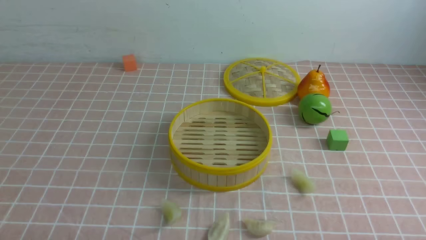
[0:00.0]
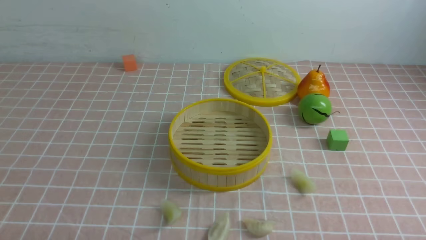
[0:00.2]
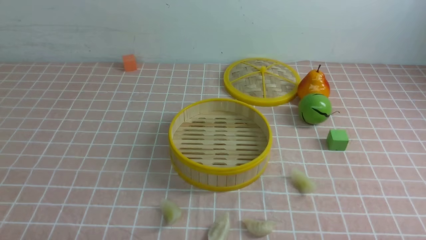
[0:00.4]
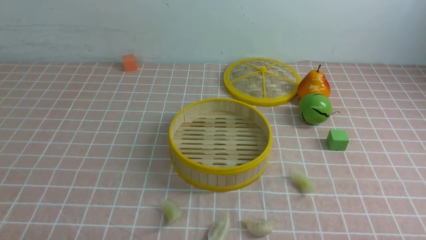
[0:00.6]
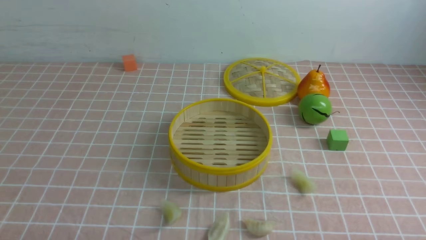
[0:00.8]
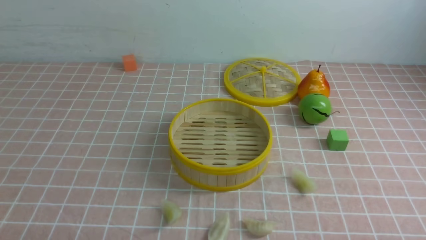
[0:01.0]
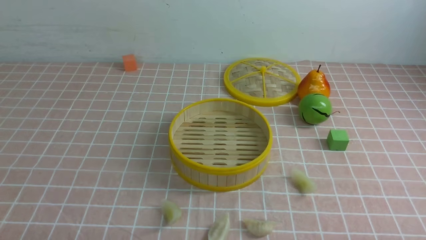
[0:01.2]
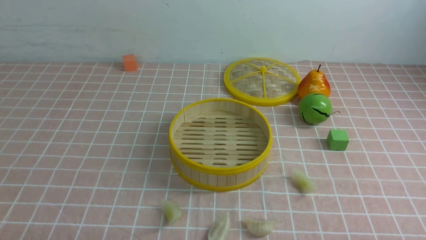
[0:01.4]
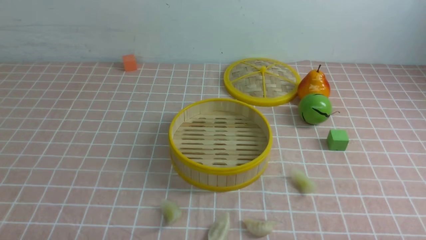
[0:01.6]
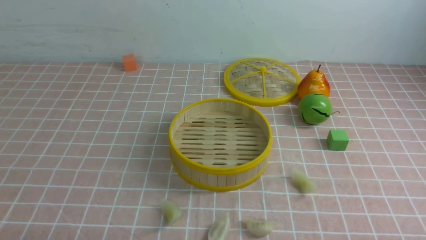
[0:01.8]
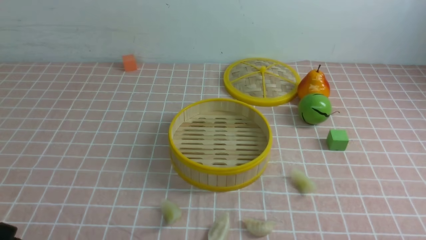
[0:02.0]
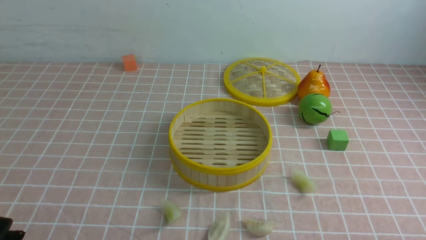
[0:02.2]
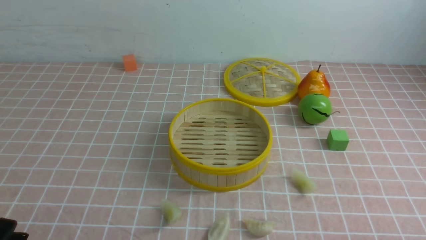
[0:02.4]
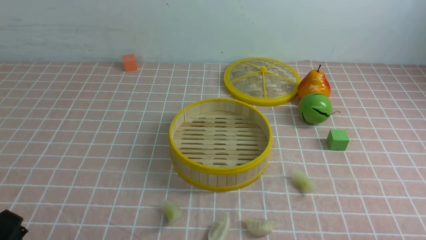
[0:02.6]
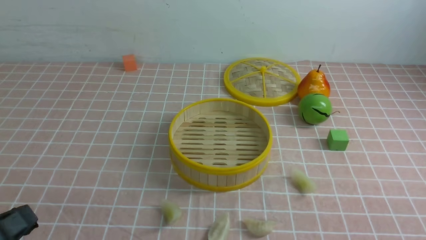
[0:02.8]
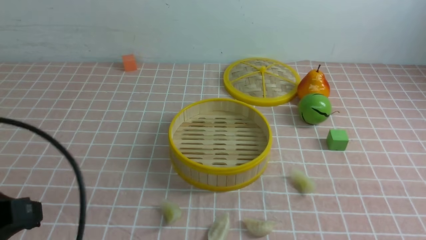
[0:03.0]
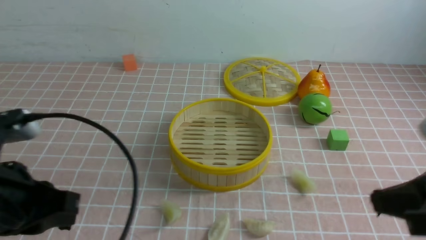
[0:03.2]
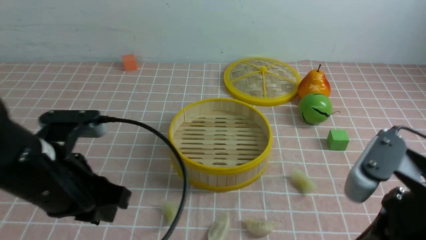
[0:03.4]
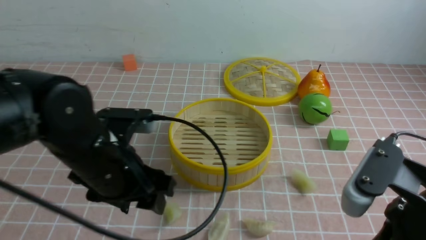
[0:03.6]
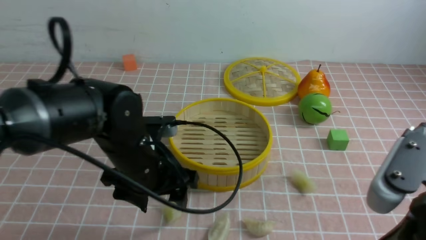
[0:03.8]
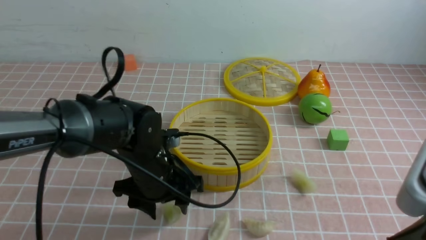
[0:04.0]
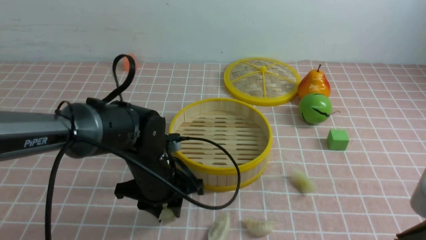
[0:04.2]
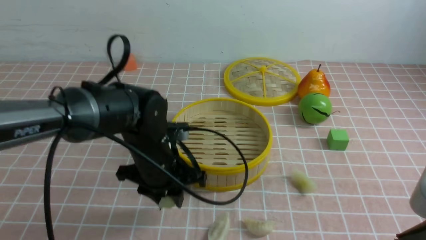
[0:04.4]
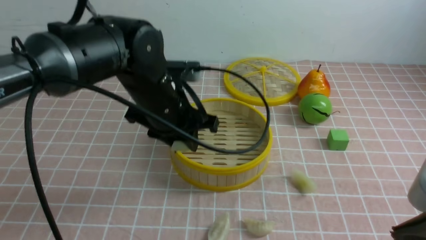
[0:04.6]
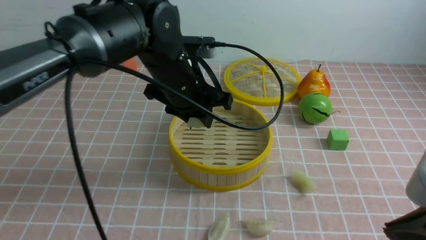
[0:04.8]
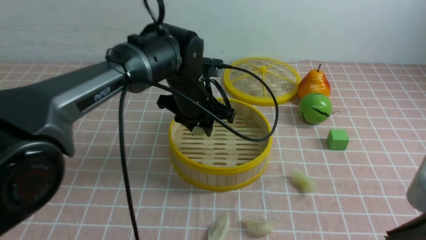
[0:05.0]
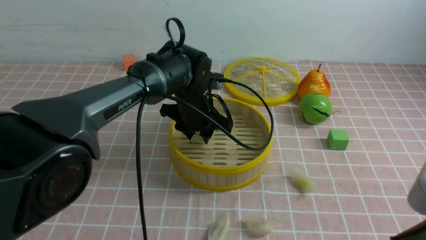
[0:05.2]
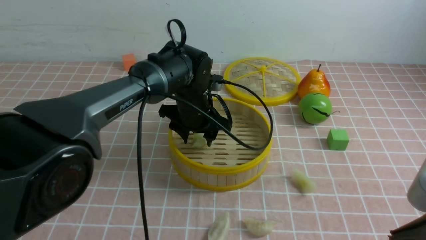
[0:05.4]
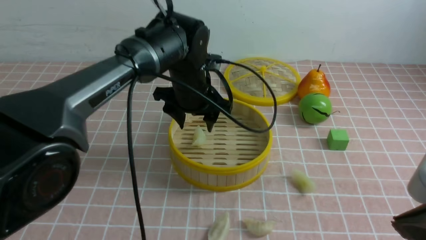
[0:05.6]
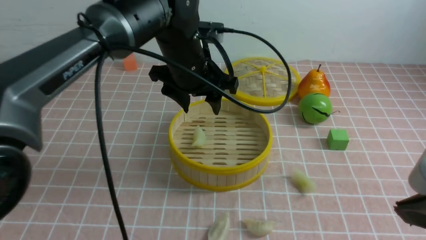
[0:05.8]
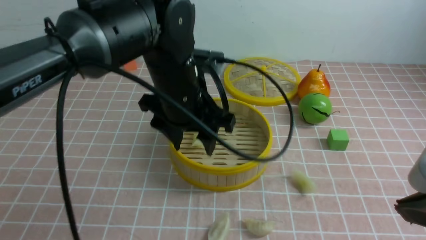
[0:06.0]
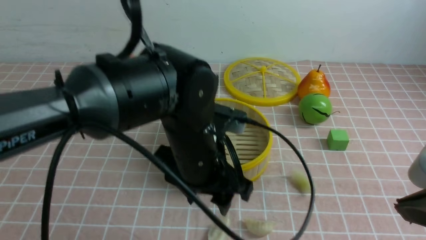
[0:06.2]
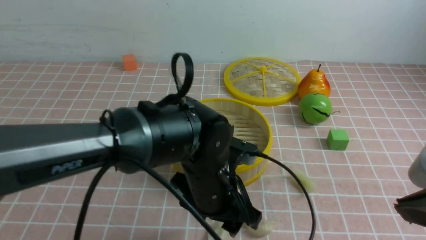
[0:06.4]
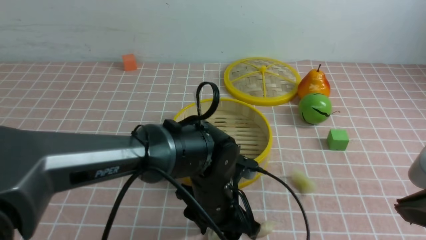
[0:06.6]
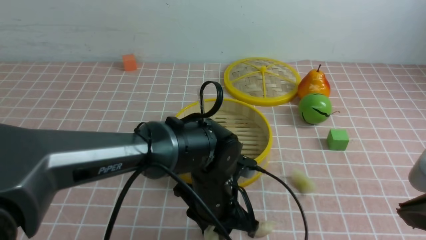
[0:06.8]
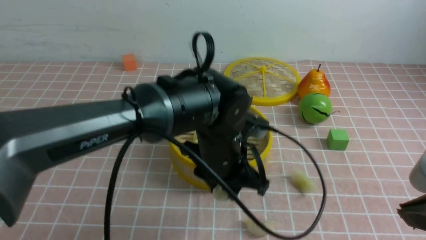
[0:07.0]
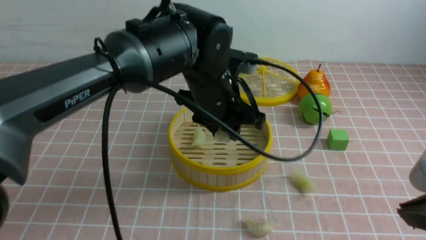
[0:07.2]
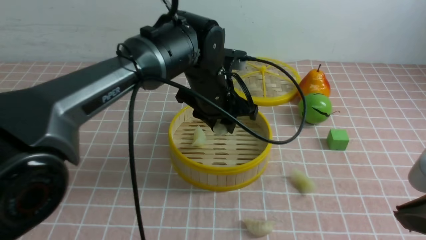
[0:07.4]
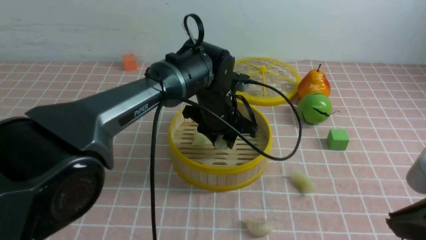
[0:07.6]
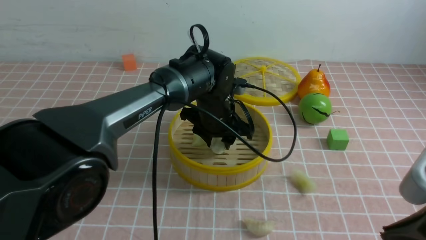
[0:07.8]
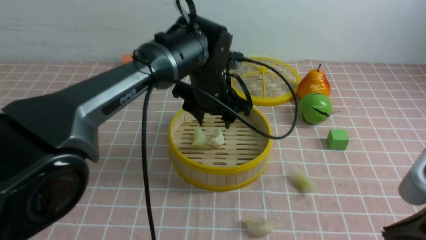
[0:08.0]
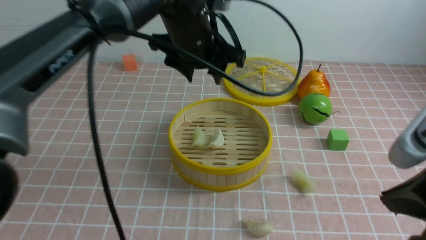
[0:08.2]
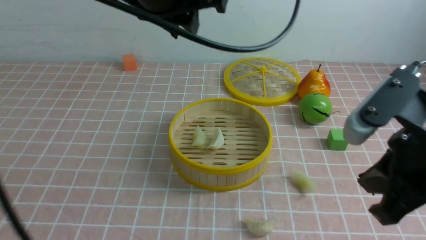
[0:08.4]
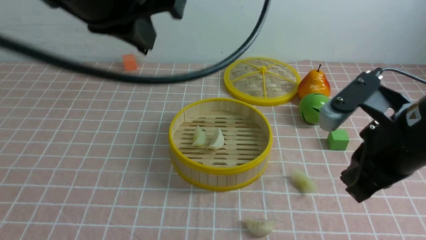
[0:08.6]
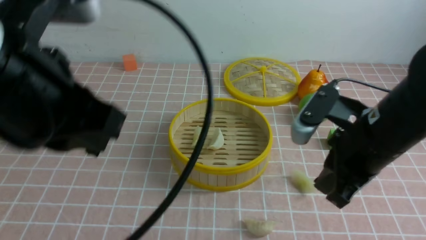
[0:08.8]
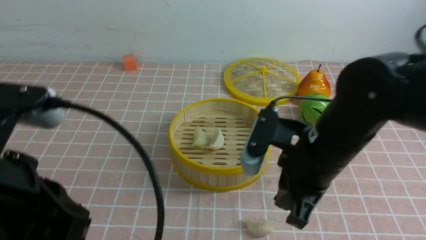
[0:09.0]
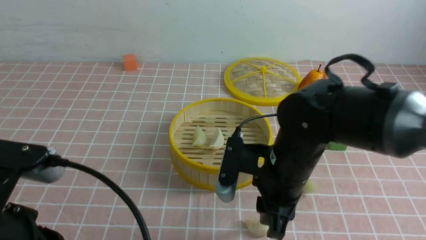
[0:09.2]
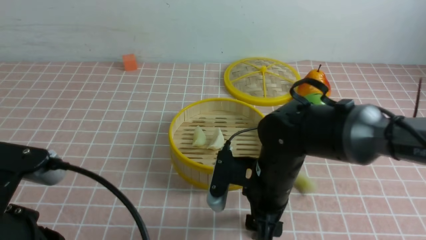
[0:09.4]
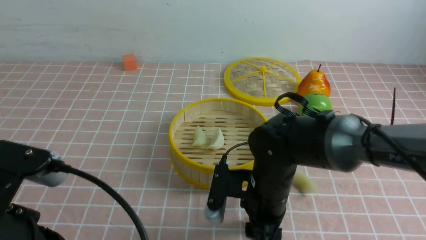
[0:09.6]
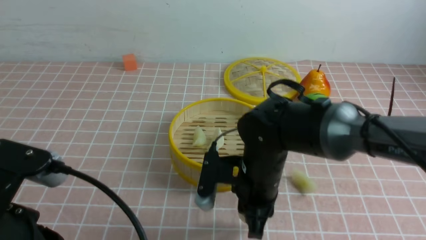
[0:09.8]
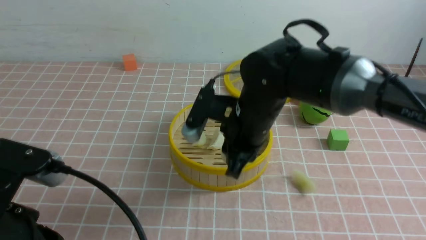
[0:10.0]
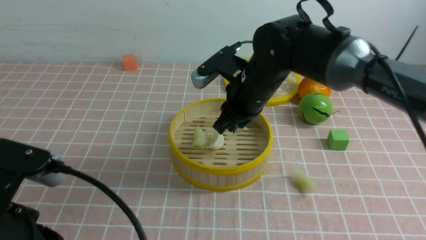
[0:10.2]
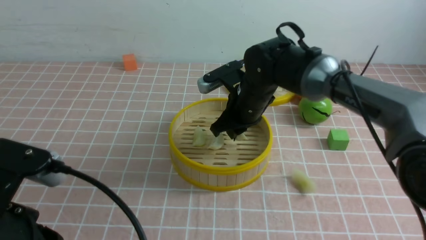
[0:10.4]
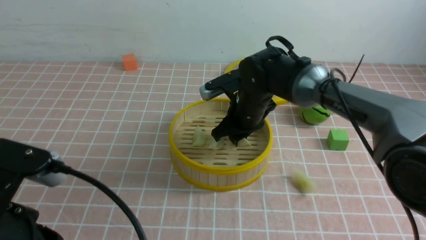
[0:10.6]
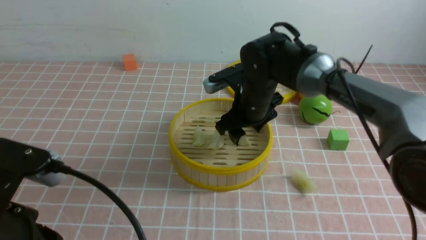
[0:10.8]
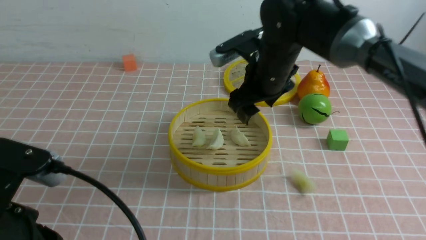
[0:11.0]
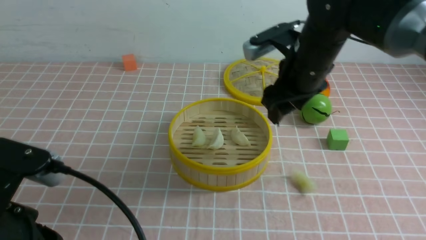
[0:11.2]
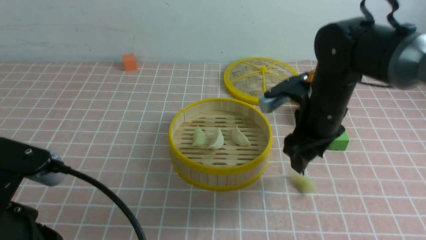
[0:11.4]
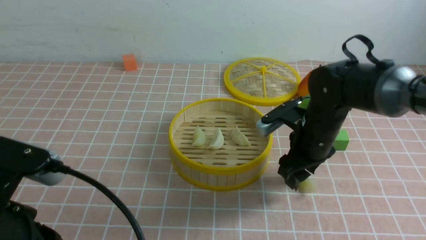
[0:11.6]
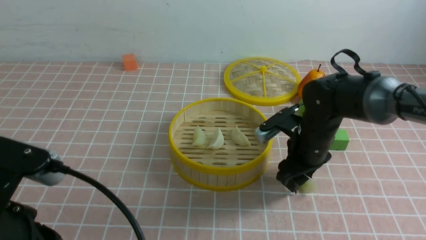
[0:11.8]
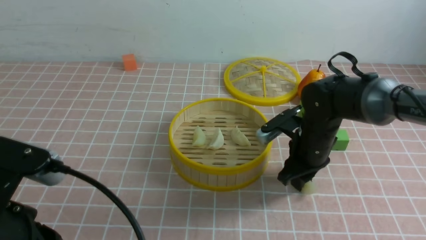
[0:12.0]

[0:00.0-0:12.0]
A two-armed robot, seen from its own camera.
Task of the whole recording: put the dumplings into the steamer on the table with the pink tablecloth.
Step, 0:00.0 to 0:04.4: use the left arm to grab a dumpling.
Step, 0:04.6 to 0:05.8: use the left arm to put the dumpling into the steamer.
Step, 0:06.0 to 0:06.8: use the left arm to grab a dumpling.
Step, 0:07.0 to 0:07.8: use the left arm to put the dumpling into the steamer.
Step, 0:08.2 to 0:09.6: use the right arm to grab a dumpling.
Step, 0:10.0 to 0:10.8: use the right arm to put the dumpling into the steamer.
0:00.0 to 0:01.6: Neither gripper changes place.
0:01.6 to 0:03.0: The left gripper heads upward and forward, covering some 15 cm, and closes its fingers.
0:03.0 to 0:04.4: The right gripper ends up approximately 5 cm from where it was. Meanwhile the left gripper is displaced forward and to the right by approximately 25 cm, and opens its fingers.
0:04.4 to 0:06.0: The left gripper moves upward, approximately 10 cm, goes forward and returns, about 10 cm each way, and opens.
0:06.0 to 0:07.6: The left gripper heads forward and downward, covering approximately 10 cm, and closes its fingers.
0:07.6 to 0:09.0: The right gripper shifts roughly 20 cm forward, to the left and downward. Meanwhile the left gripper shifts about 35 cm backward, to the left and upward, and closes.
0:09.0 to 0:10.4: The left gripper changes place by roughly 5 cm. The right gripper moves forward, roughly 15 cm, and opens, then closes again.
0:10.4 to 0:12.0: The right gripper moves to the right, roughly 10 cm, and opens and closes again.

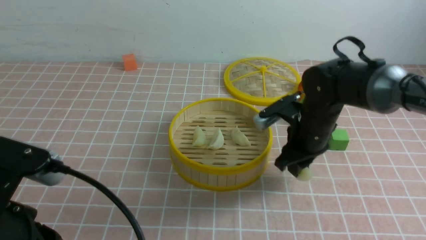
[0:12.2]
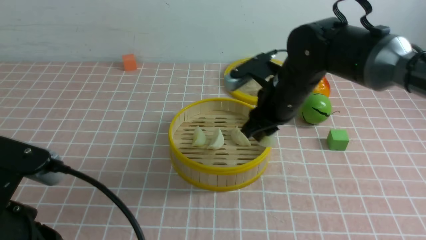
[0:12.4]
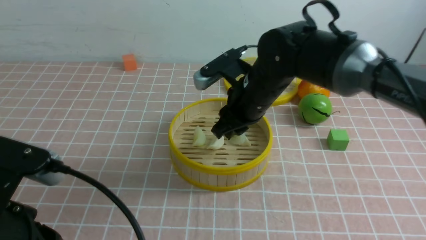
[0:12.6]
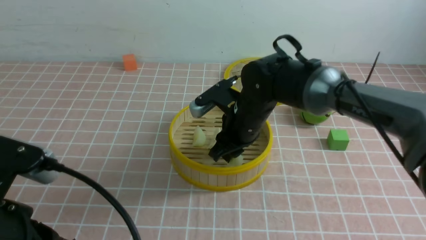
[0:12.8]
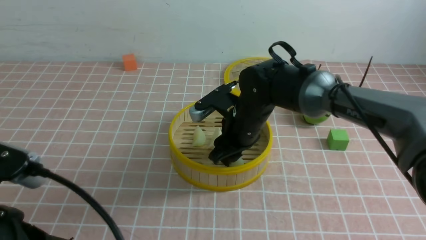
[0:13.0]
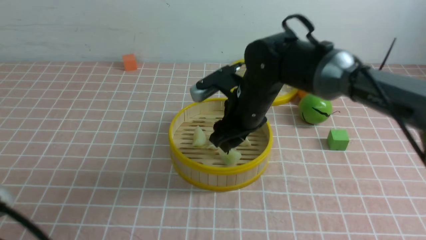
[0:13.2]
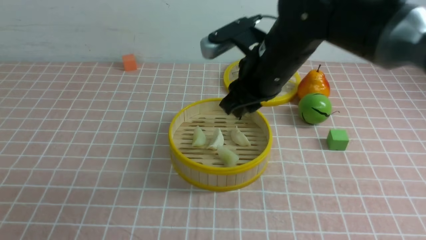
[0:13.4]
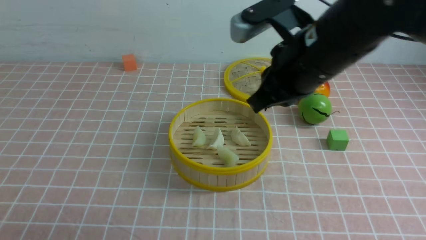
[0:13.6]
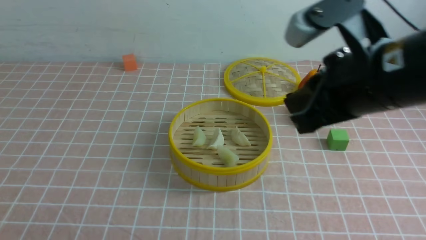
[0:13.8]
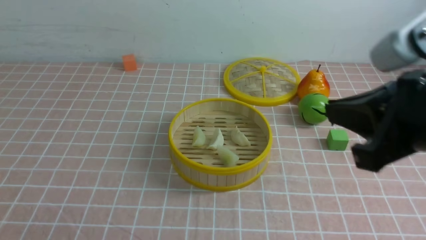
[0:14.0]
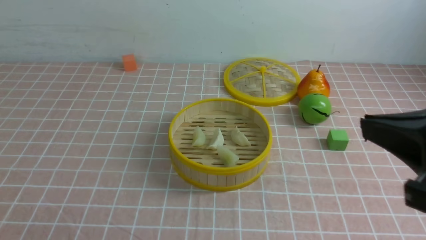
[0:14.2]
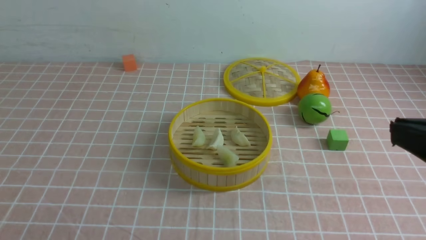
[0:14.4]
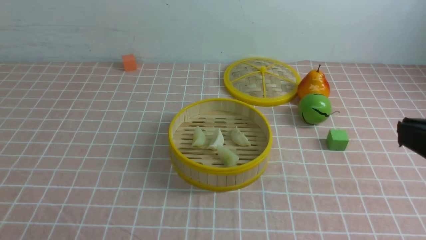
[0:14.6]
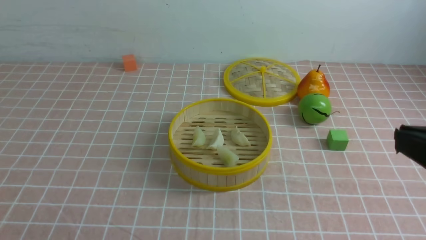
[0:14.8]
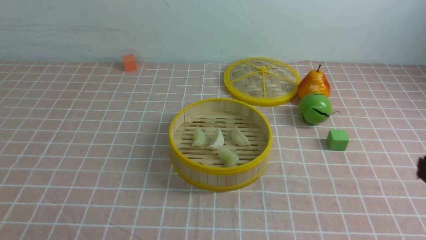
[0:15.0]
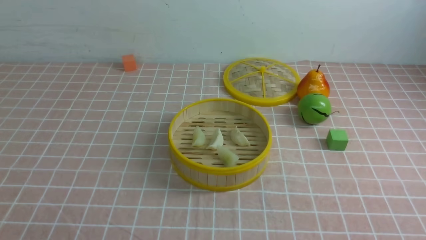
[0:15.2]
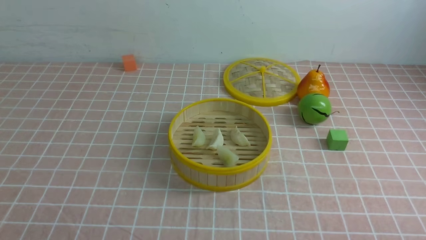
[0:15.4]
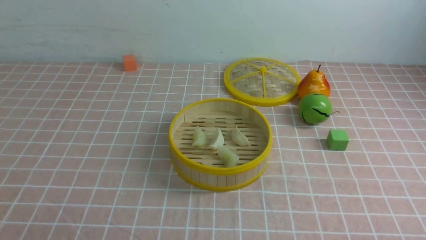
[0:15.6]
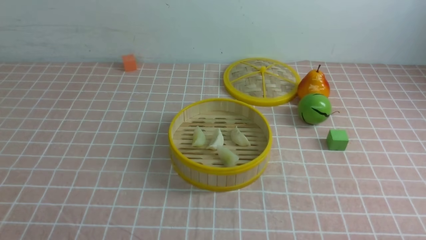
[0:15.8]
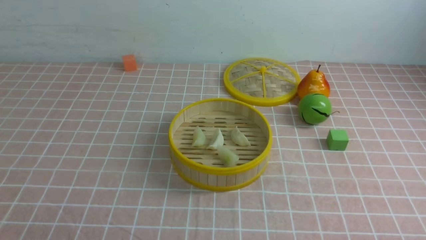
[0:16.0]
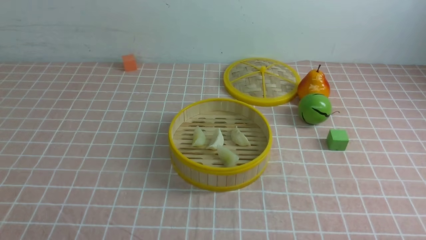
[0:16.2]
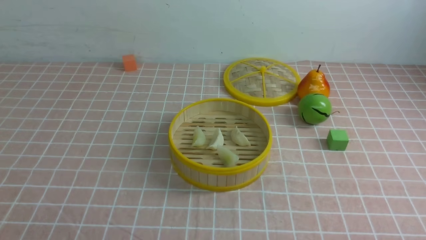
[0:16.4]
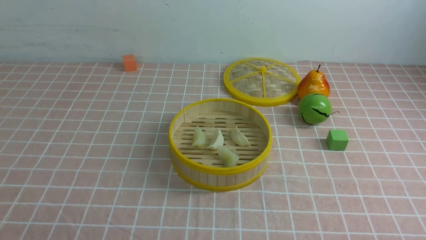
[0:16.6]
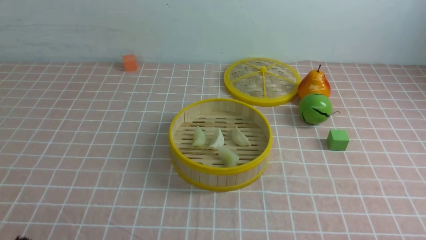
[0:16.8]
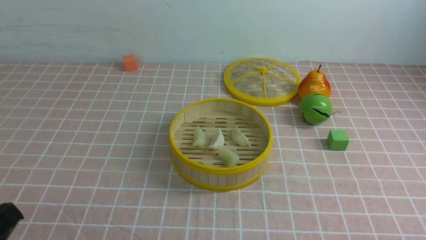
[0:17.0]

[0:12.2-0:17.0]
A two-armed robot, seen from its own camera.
Task of the whole recording: put the dumplings into the steamer on the table with the pink tablecloth.
Step, 0:12.4 to 0:13.2: use the right arm to put the dumpling into the steamer.
0:12.2 to 0:13.8: The right gripper goes about 25 cm upward and backward, and closes. Meanwhile the left gripper moves backward and to the left, roughly 10 cm.
0:13.8 to 0:15.4: The right gripper goes roughly 30 cm downward, backward and to the right.
